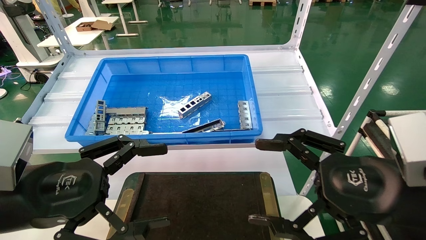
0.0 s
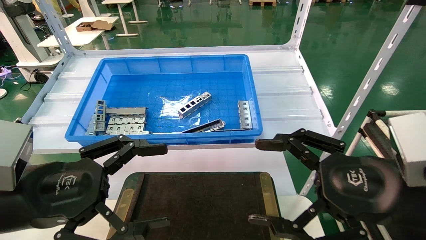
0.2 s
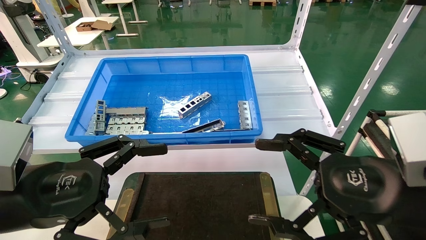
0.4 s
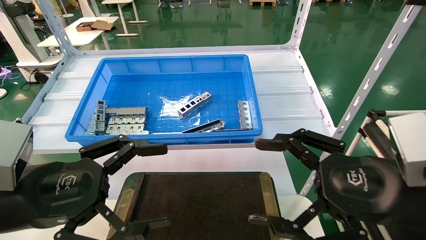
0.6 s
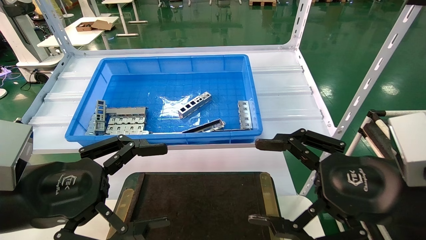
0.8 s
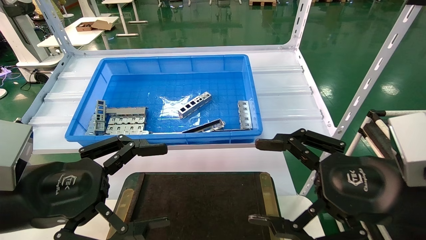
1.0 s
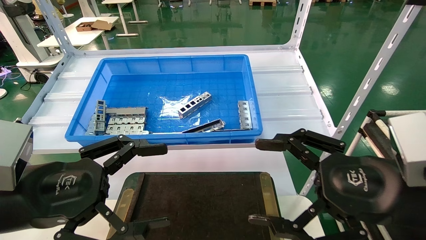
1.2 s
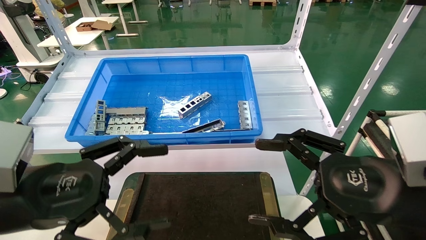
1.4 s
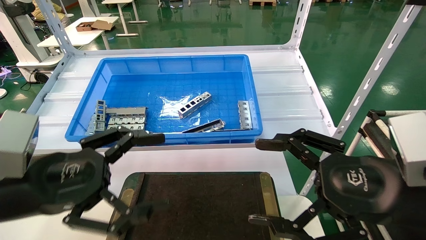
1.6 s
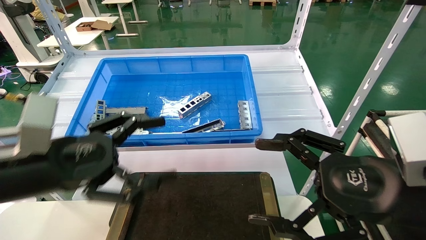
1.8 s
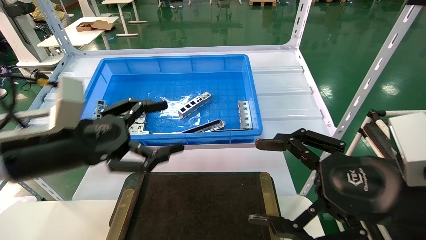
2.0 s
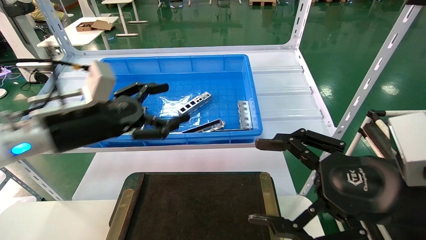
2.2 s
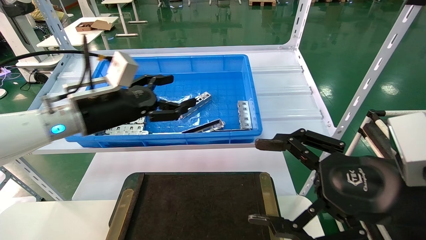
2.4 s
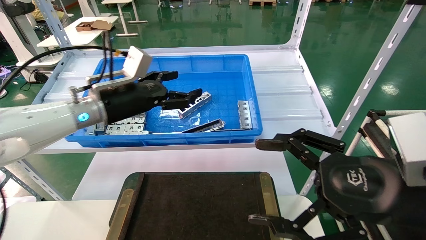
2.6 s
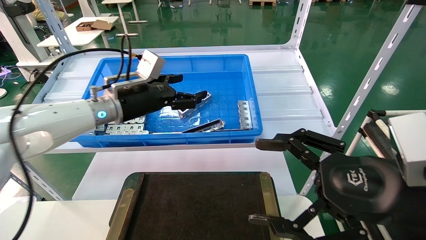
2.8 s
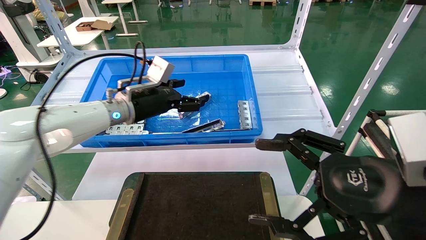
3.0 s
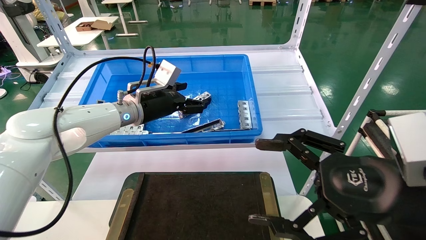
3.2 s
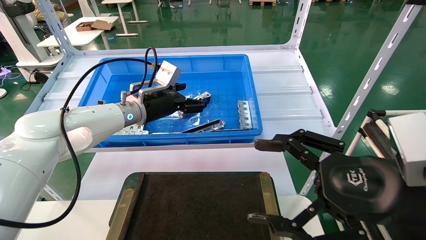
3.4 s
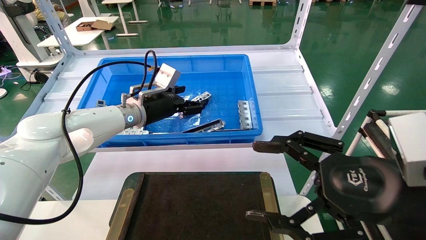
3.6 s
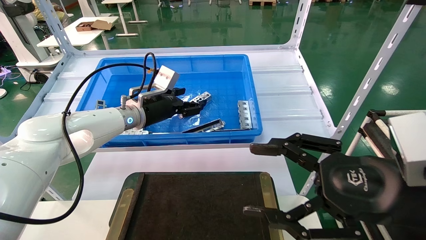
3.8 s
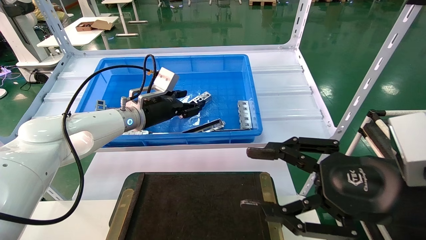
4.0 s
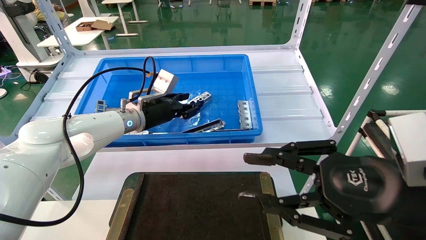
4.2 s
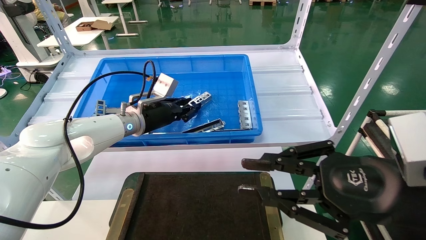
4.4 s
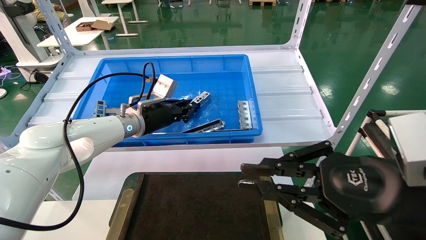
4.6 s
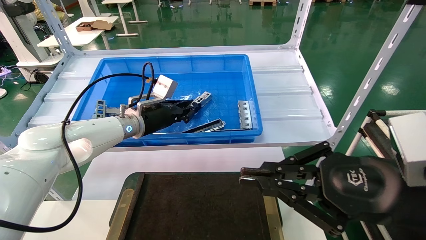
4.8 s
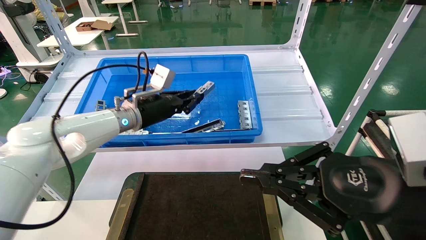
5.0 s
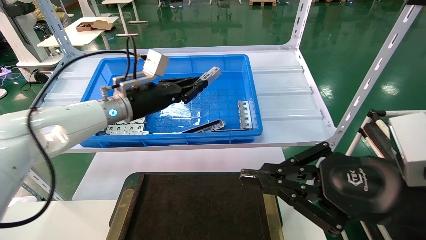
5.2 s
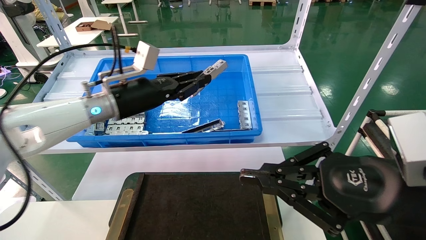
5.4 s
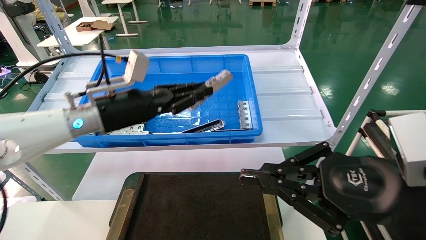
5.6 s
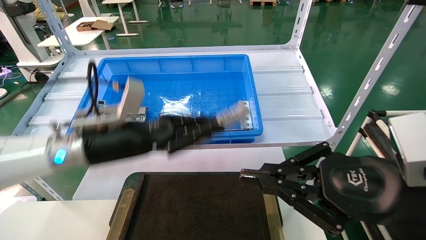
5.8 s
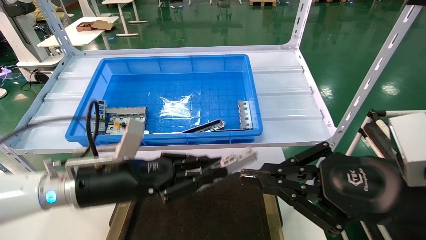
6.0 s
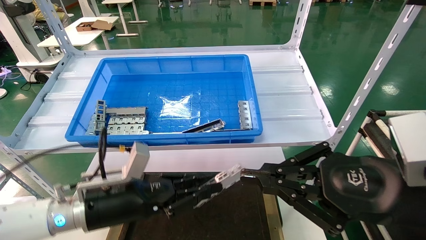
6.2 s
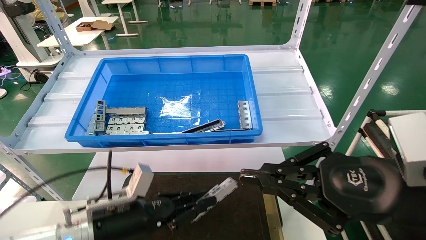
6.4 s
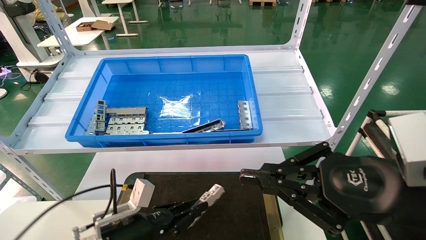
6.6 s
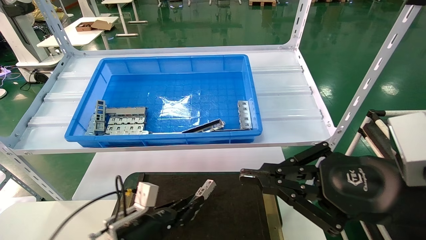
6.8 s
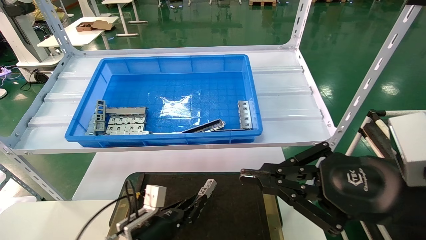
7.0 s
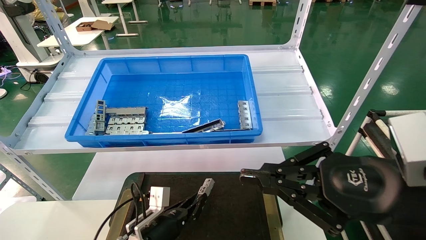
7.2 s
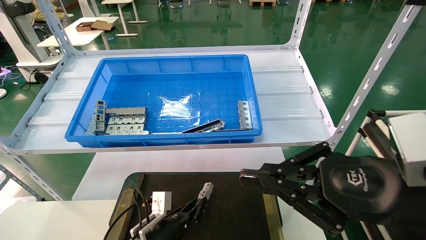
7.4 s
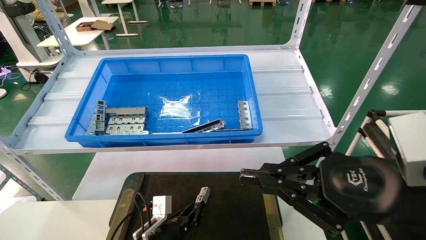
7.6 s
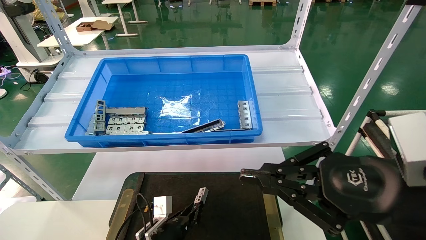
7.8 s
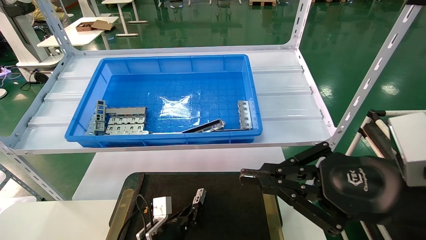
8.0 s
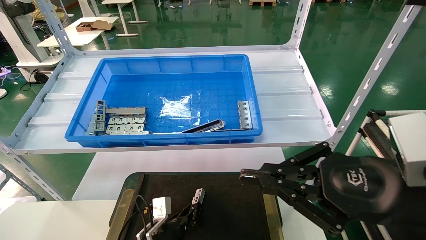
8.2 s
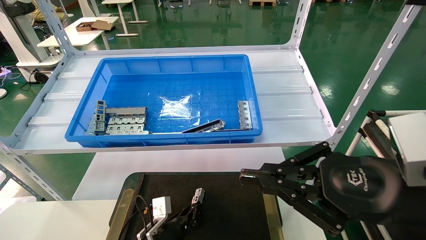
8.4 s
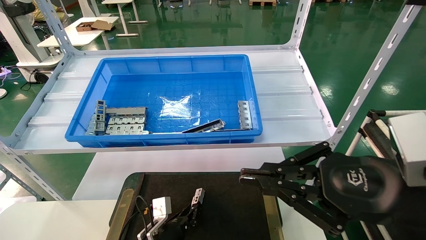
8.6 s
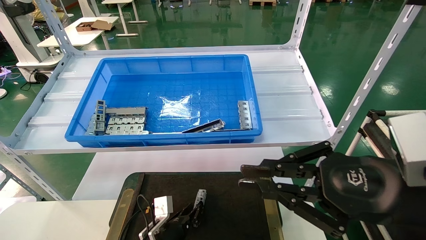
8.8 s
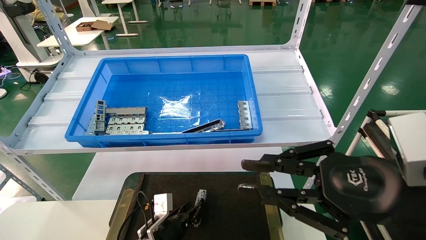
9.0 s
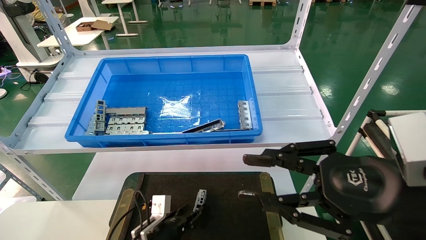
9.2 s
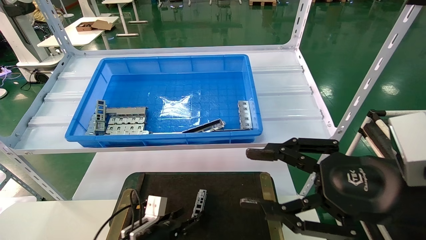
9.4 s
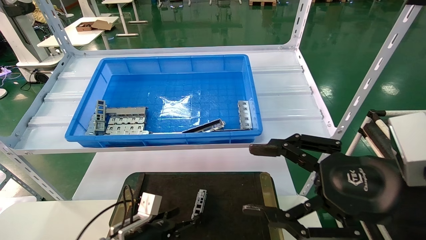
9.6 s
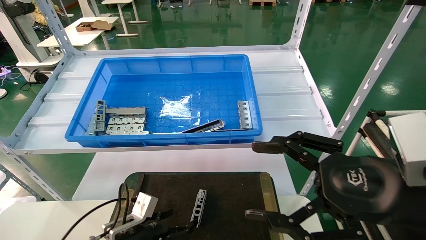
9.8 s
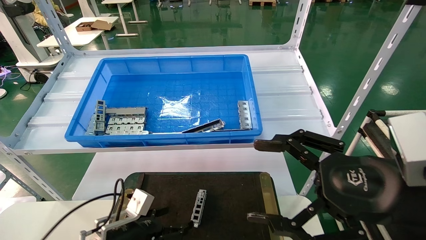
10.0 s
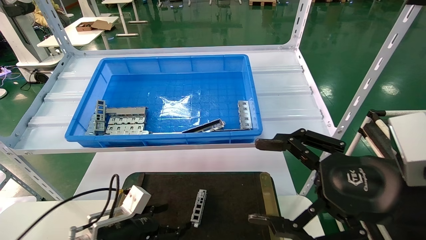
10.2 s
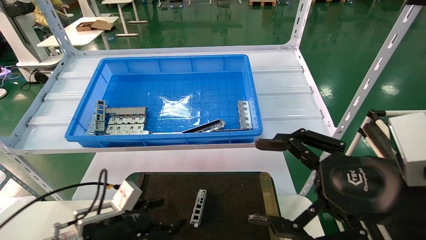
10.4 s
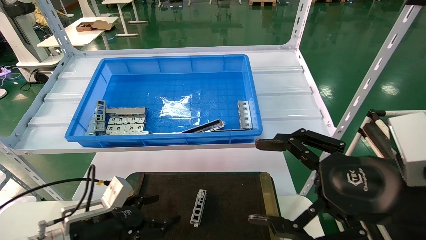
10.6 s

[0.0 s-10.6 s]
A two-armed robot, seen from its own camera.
Task of the whole recording: Grasp the part with one hand and place it on the black container.
Step, 1.6 to 5.2 s: Pick up the front USB bracket from the feeding area.
Step, 5.4 to 9.0 s: Place the front USB bracket into the box.
0.0 to 1.6 s: The grippers make only small movements.
1.6 to 3.0 s: The left gripper goes approximately 25 cm forward.
3.0 to 4.6 s: The left gripper ends up approximately 5 cm from where it was, and closes. The right gripper closes up.
4.6 to 6.0 s: The left gripper goes approximately 20 cm backward.
6.0 to 7.6 s: The left gripper travels downward by about 25 cm.
7.6 to 9.0 s: The grippers make only small movements.
9.0 to 10.6 s: The right gripper opens up, while the left gripper heads upward, to the left and backward, covering roughly 20 cm, and opens its fingers.
